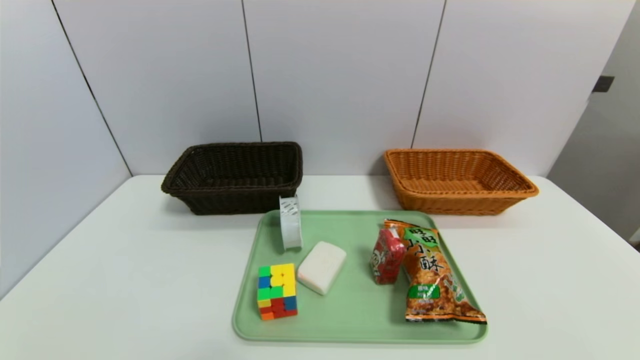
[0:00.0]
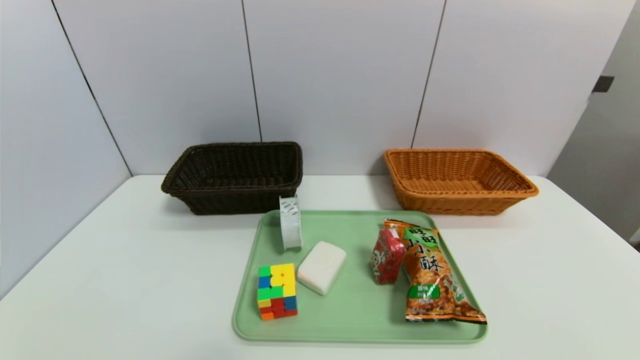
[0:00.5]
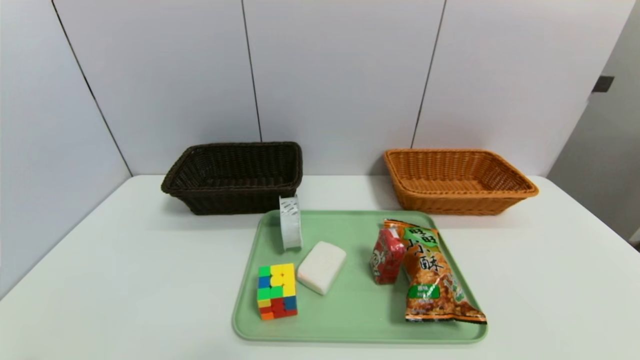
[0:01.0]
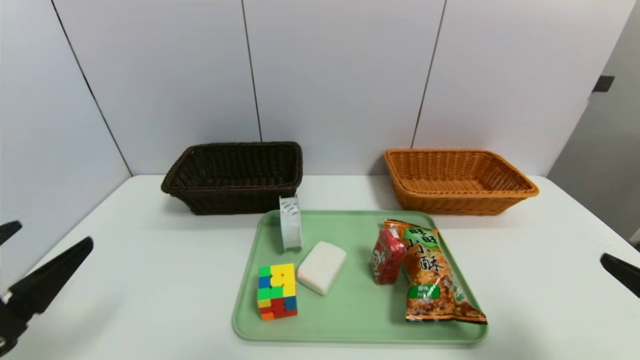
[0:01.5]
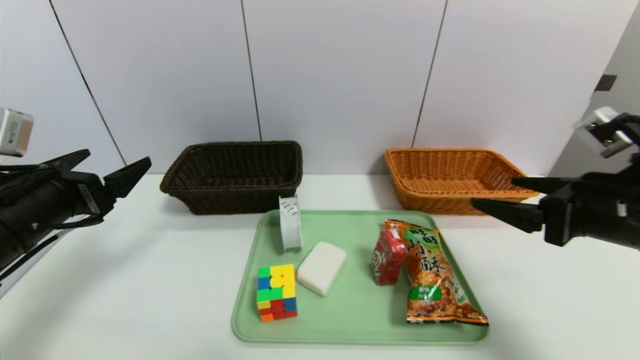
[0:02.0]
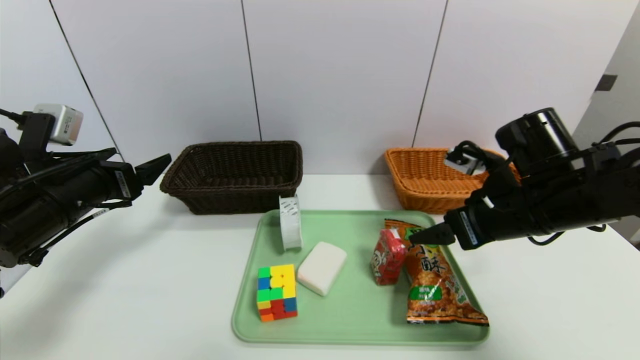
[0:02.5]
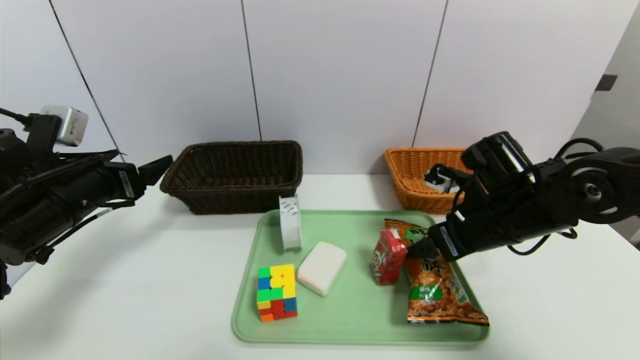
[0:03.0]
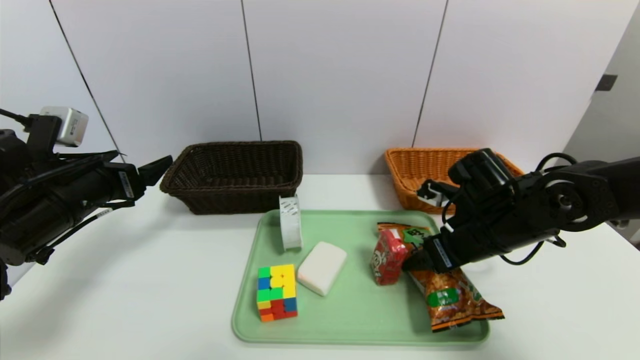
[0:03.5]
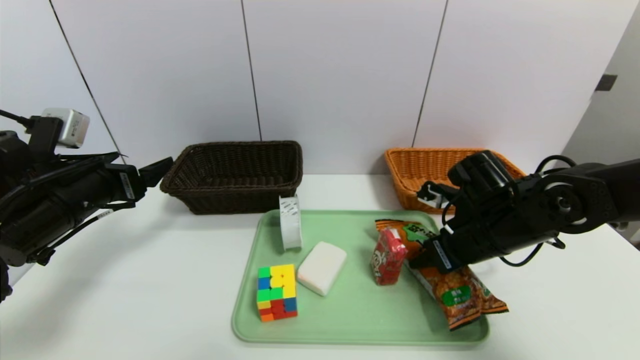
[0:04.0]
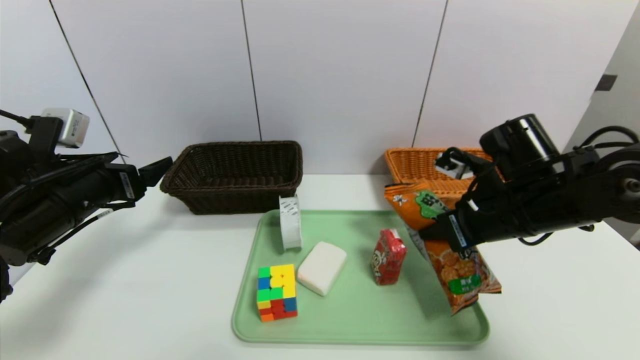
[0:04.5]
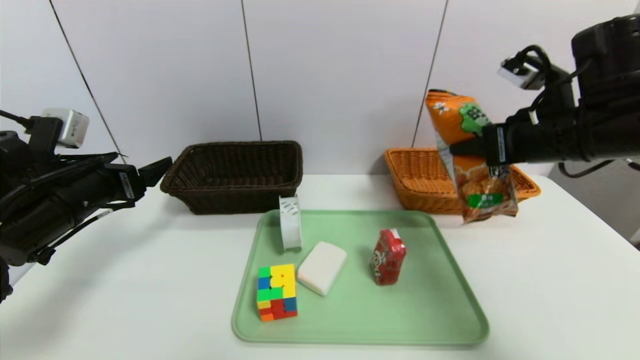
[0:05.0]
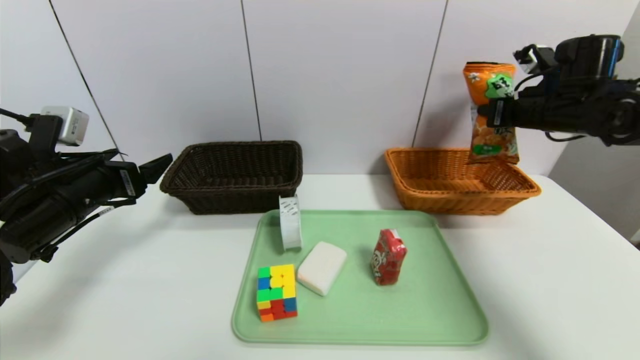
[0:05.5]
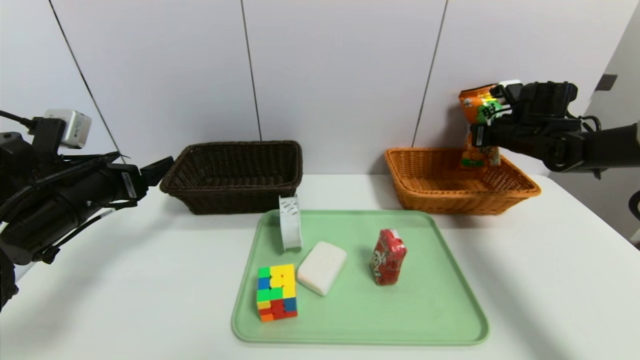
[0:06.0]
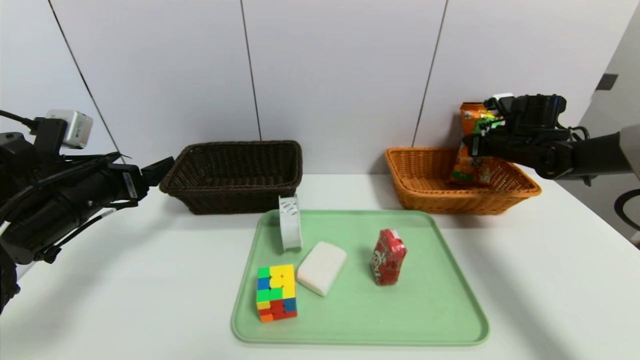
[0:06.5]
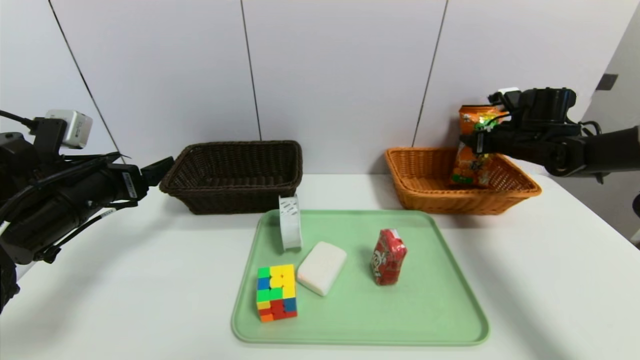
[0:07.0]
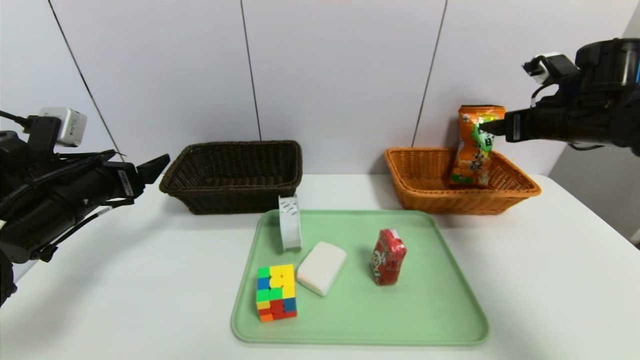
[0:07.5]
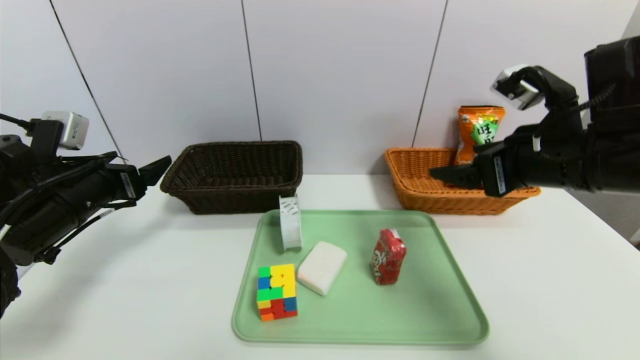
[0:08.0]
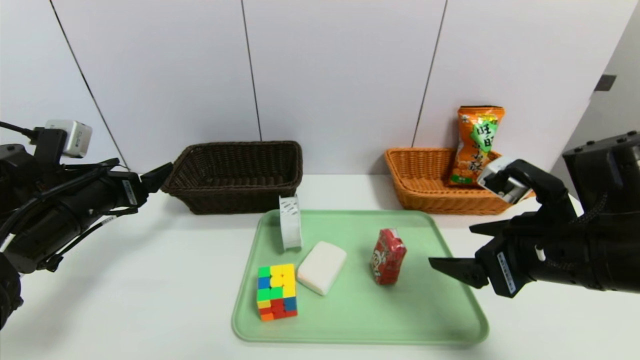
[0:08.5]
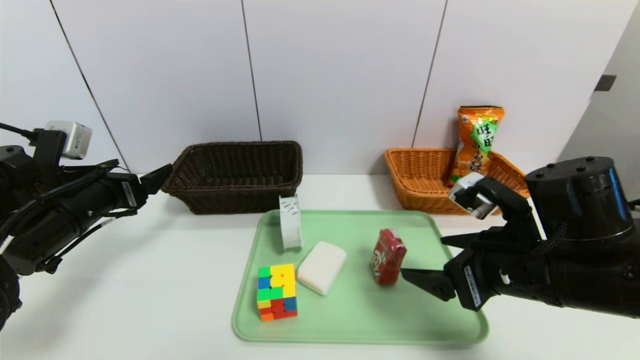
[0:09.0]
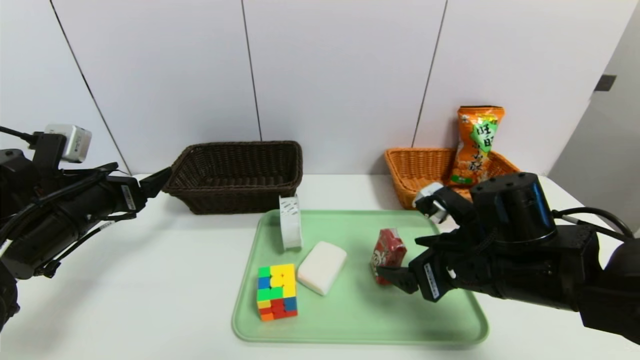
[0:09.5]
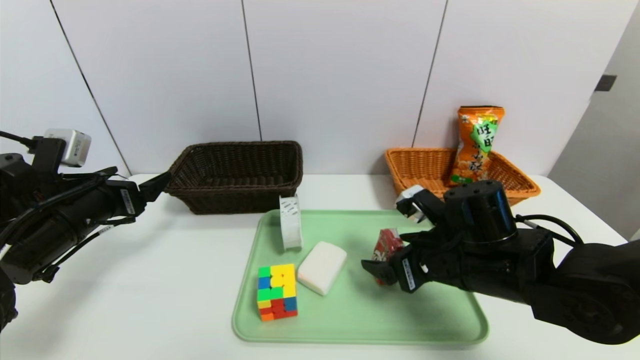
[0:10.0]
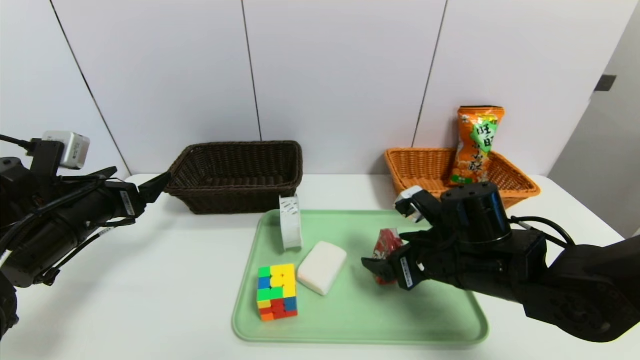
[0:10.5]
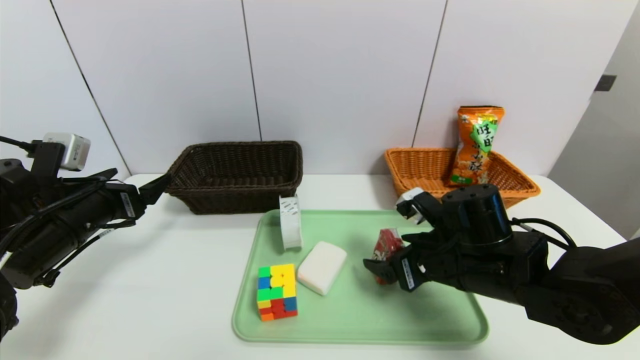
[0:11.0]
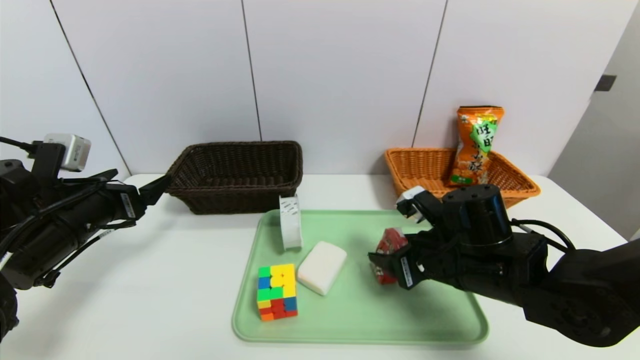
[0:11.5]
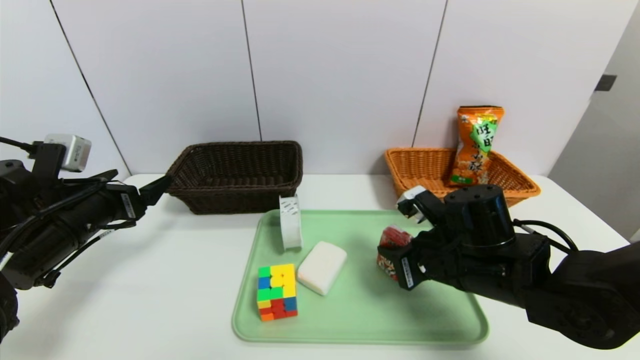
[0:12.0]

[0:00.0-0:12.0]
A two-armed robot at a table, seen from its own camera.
Task of the whole recording: place the food in the right basket with the right gripper, and place the non food items in the left basket with the left gripper.
Step, 0:00.0 to 0:07.5: Grasp the cookie and put it in the right basket.
0:00.0 to 0:02.0: The two grippers go about 25 cm forward and upward.
0:02.0 to 0:04.0: The right gripper travels forward, downward and to the left by some 15 cm, and closes up. Meanwhile the left gripper changes place by about 5 cm.
0:04.0 to 0:06.0: The right gripper heads forward and to the right, covering some 25 cm, and closes its fingers.
0:06.0 to 0:08.0: The right gripper heads backward and to the left, covering some 25 cm, and opens.
0:08.0 to 0:10.0: The right gripper travels downward and to the left by some 15 cm.
0:10.0 to 0:12.0: The right gripper closes.

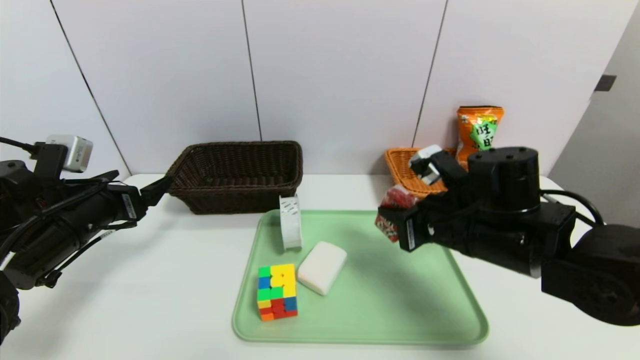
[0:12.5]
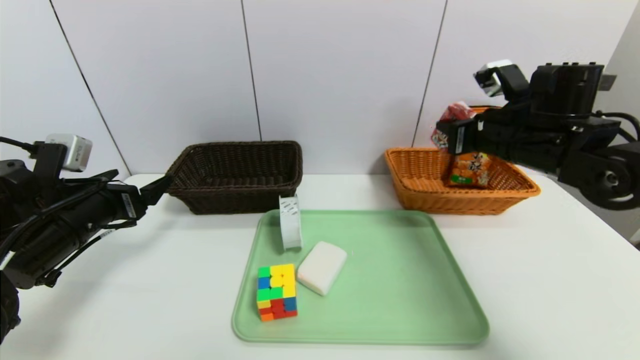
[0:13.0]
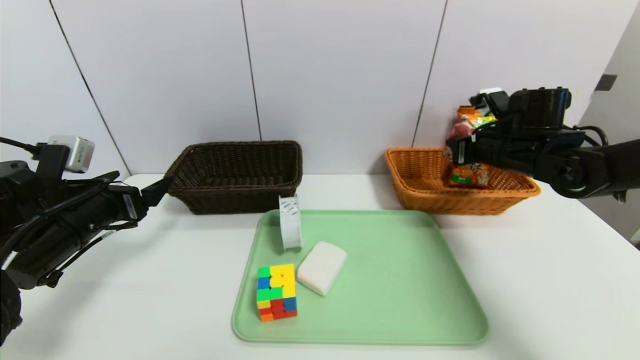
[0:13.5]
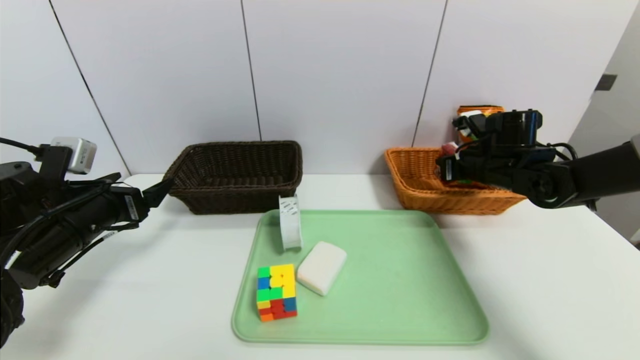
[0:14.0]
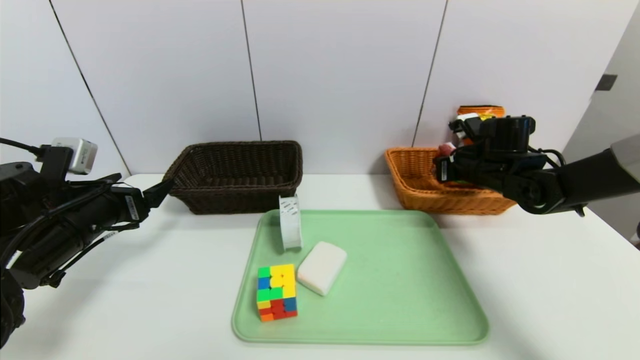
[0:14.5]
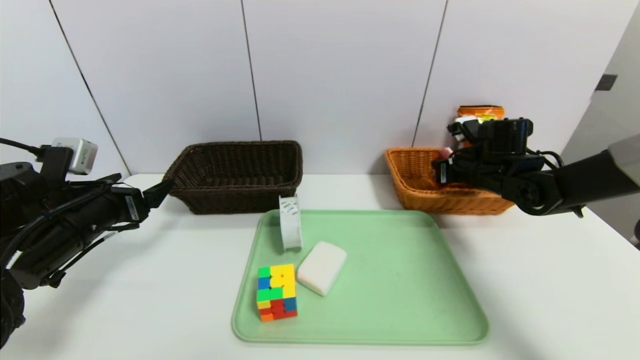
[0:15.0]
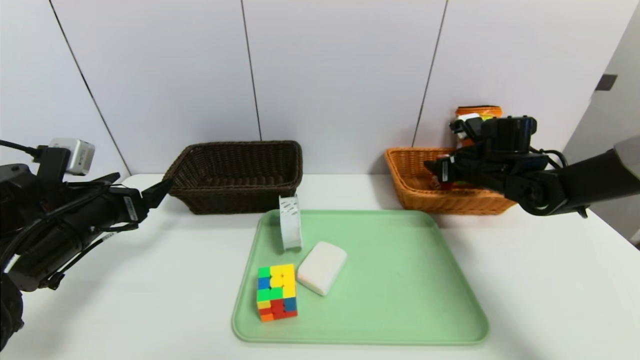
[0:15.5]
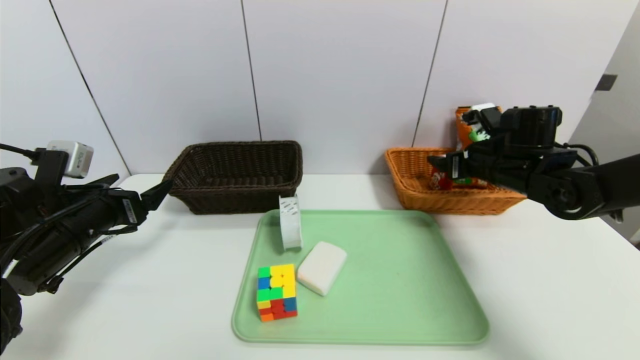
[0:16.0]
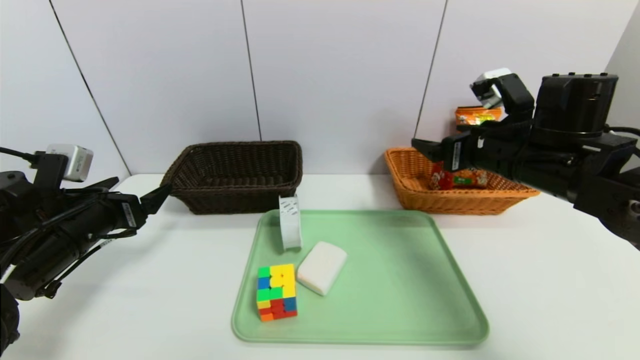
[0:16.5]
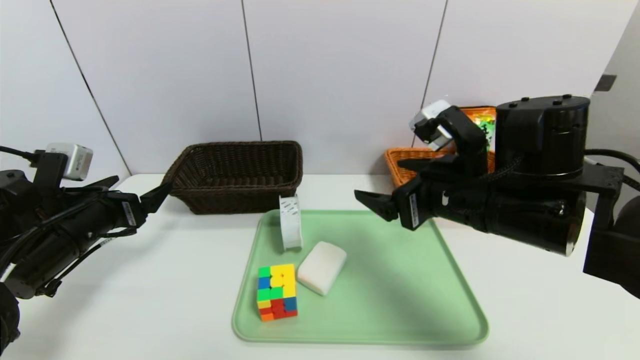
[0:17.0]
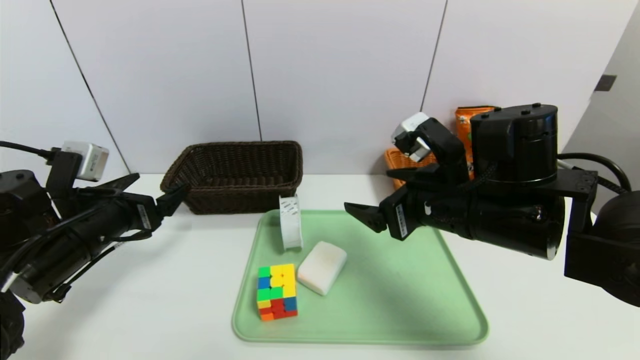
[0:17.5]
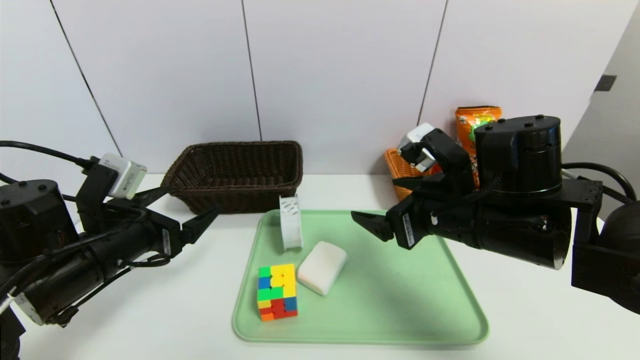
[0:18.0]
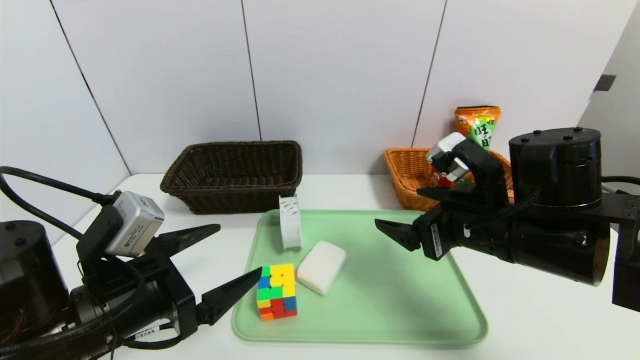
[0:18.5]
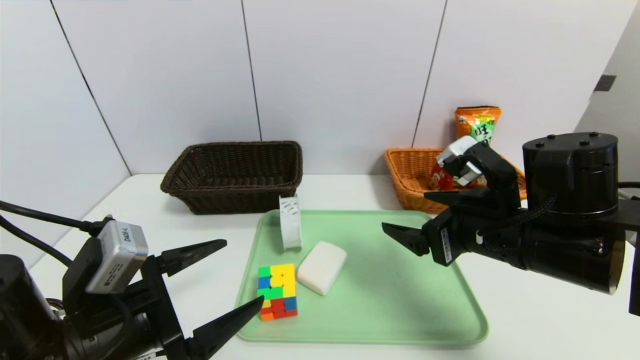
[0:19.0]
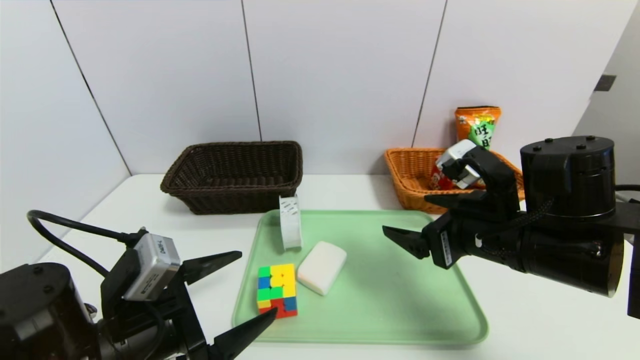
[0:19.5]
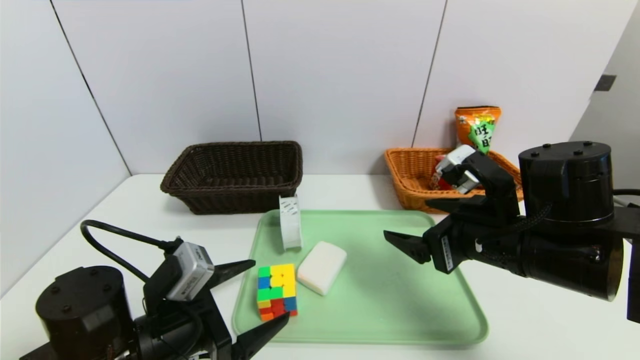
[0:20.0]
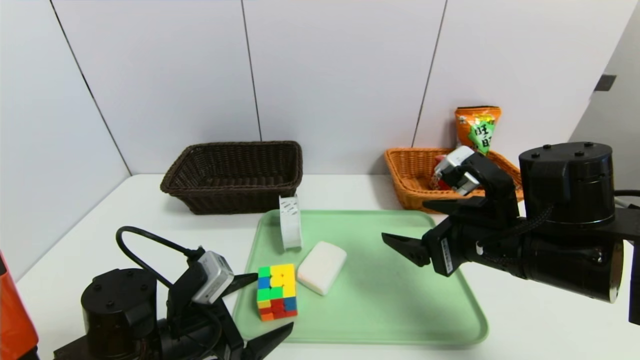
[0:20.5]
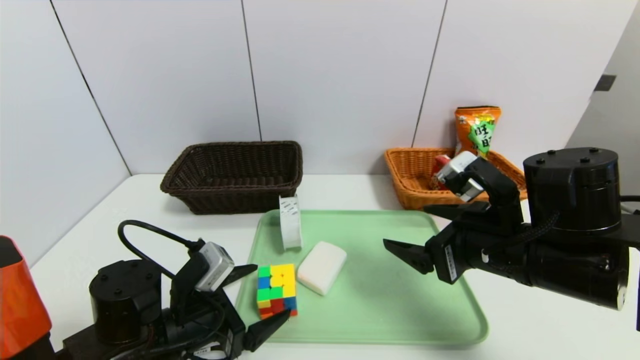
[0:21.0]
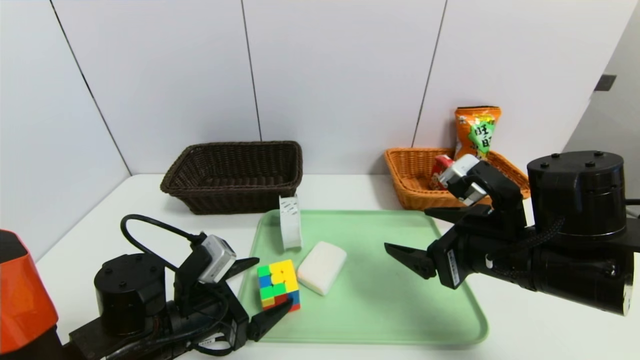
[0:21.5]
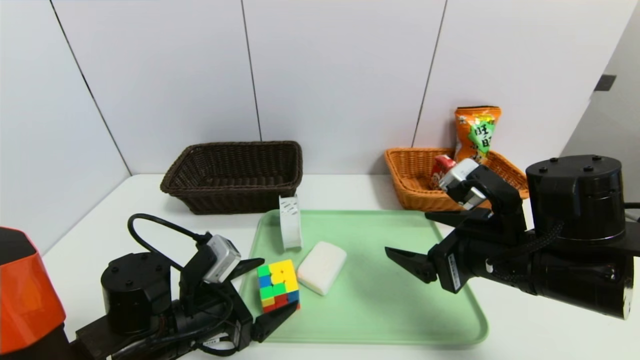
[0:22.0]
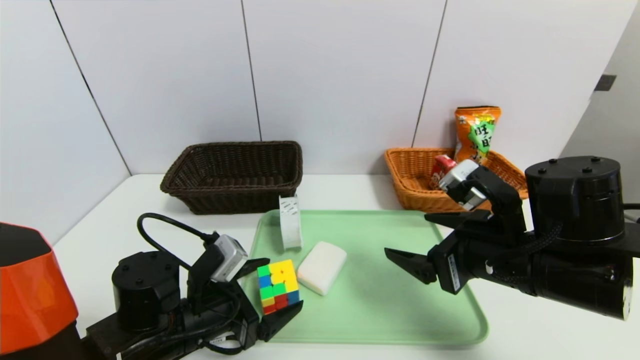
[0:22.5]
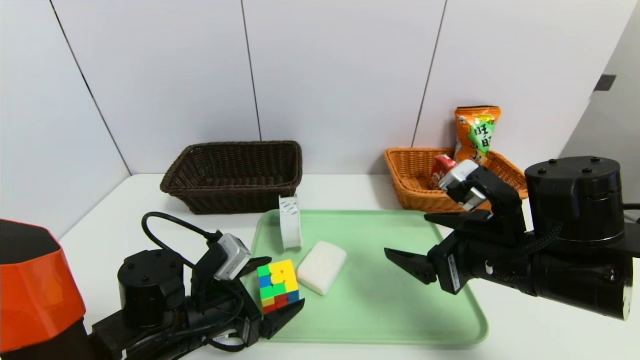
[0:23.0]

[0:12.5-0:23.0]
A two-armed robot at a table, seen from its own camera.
Task of the whole recording: place the food in the right basket with the right gripper, and place the non food items in the left basket with the left gripper.
Step, 0:12.5 to 0:16.0: Grasp the milk and put it in the right basket.
0:12.5 to 0:14.5: The right gripper goes about 20 cm forward and to the right.
0:14.5 to 0:16.5: The right gripper shifts approximately 15 cm backward, upward and to the left, and opens its fingers.
0:16.5 to 0:19.0: The right gripper shifts roughly 10 cm backward. Meanwhile the left gripper goes roughly 15 cm backward and to the right.
0:19.0 to 0:21.0: The left gripper heads downward and forward, covering roughly 10 cm.
0:21.0 to 0:23.0: The grippers move only a little.
